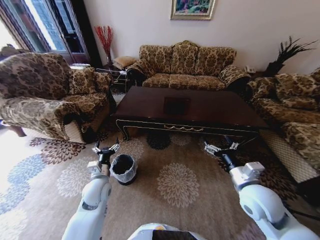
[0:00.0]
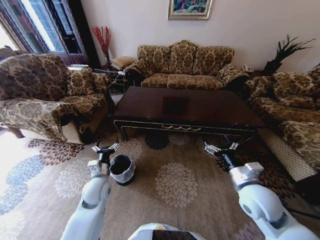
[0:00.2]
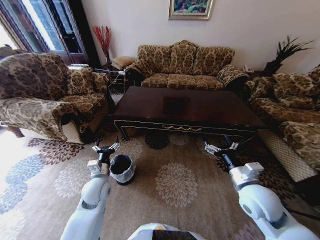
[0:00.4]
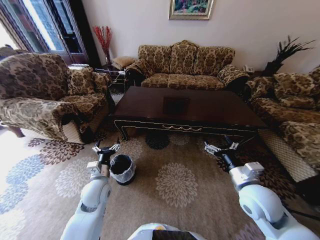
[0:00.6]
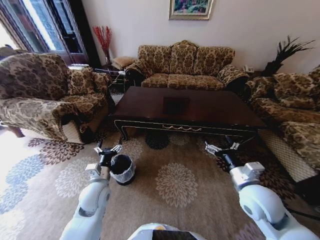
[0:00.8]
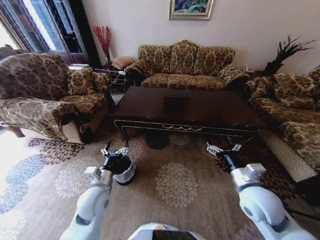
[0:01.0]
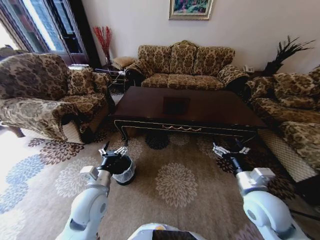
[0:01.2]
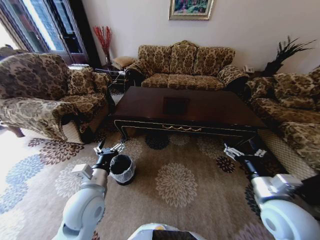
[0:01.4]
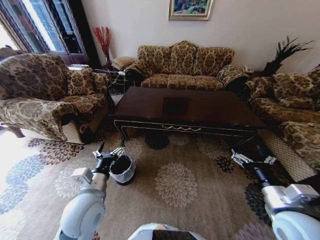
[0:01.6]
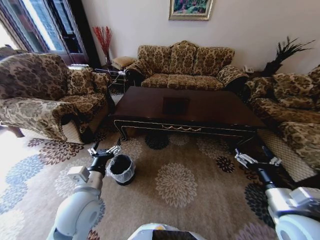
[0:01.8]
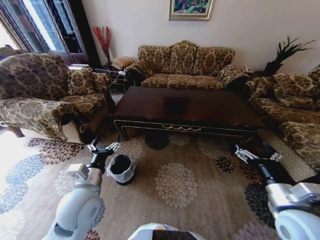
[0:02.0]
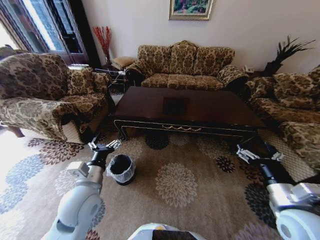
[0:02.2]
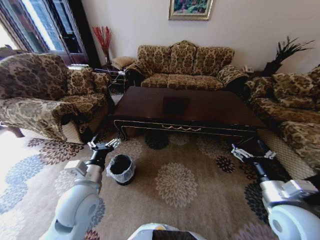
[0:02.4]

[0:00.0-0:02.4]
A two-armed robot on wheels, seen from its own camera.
Task of the whole recording: Move to the front of the table and place the trash on the table into the trash bin.
0:00.0 to 0:01.2: The left gripper heads backward and upward, covering about 10 cm.
0:01.2 to 0:02.4: The left gripper moves upward, about 5 cm. Meanwhile the right gripper moves approximately 5 cm.

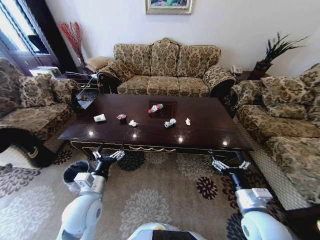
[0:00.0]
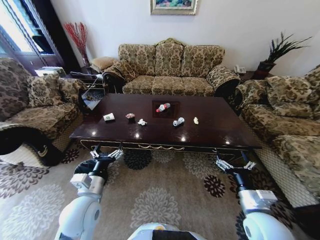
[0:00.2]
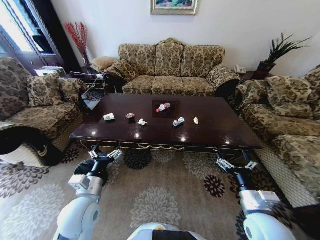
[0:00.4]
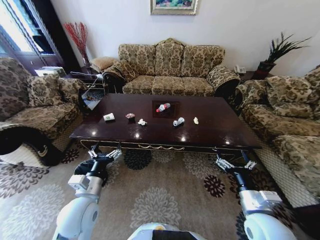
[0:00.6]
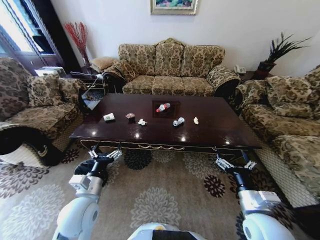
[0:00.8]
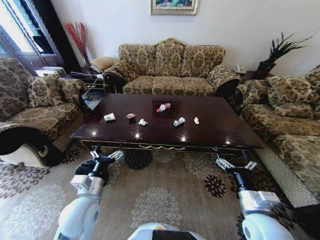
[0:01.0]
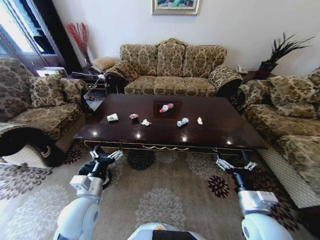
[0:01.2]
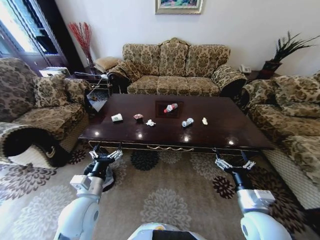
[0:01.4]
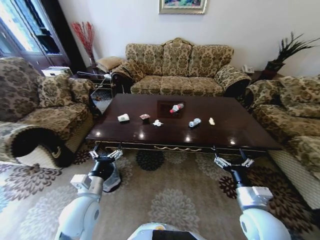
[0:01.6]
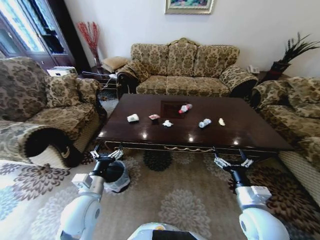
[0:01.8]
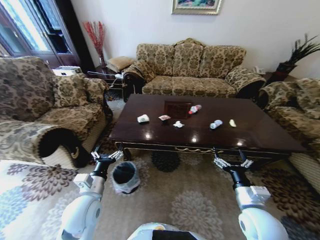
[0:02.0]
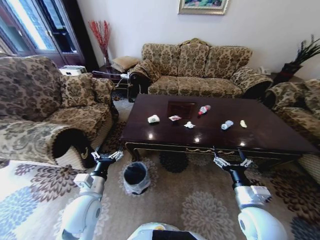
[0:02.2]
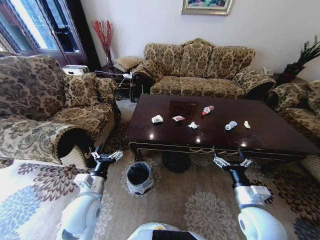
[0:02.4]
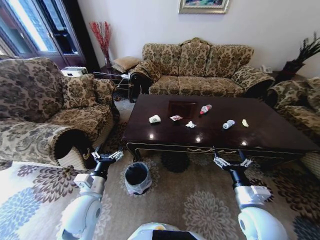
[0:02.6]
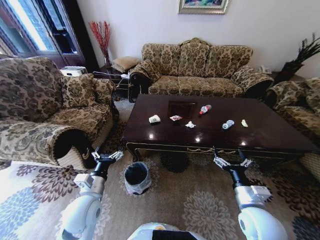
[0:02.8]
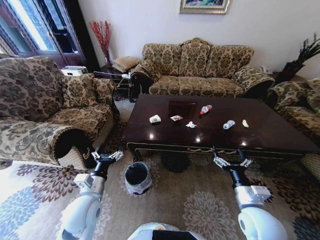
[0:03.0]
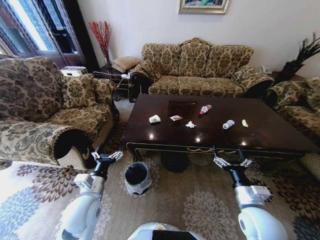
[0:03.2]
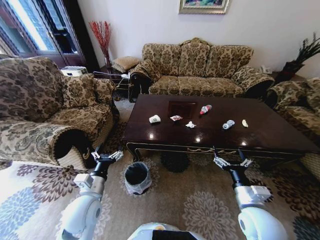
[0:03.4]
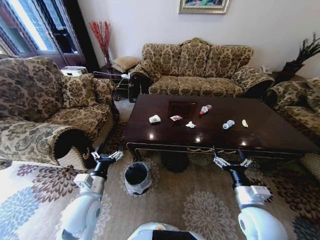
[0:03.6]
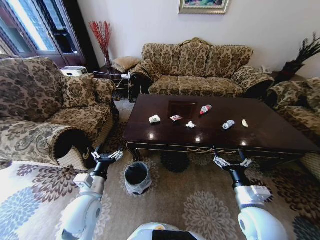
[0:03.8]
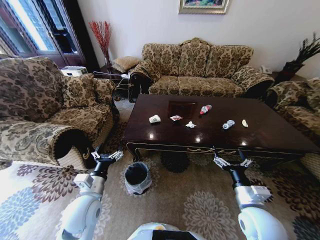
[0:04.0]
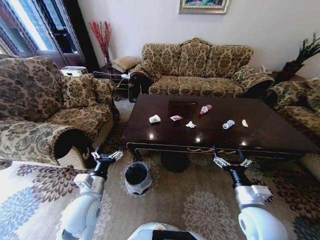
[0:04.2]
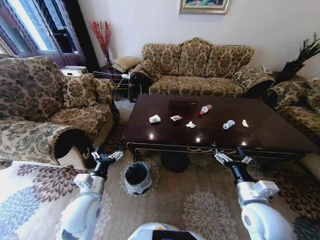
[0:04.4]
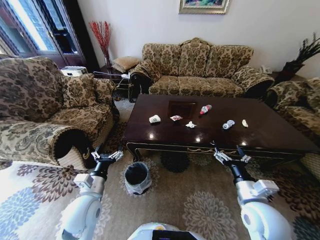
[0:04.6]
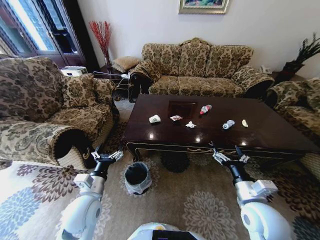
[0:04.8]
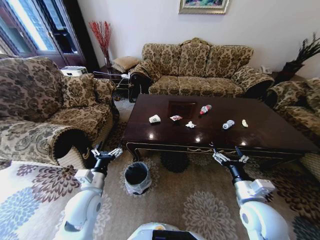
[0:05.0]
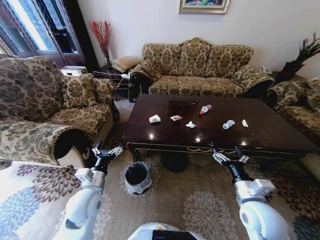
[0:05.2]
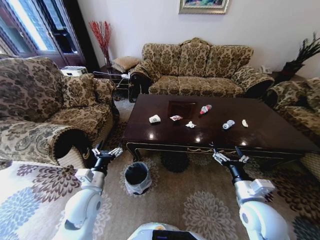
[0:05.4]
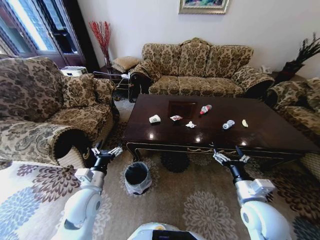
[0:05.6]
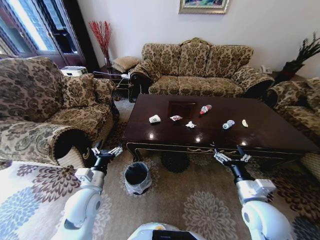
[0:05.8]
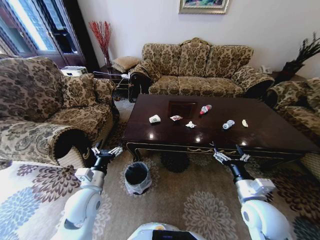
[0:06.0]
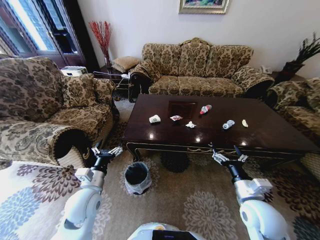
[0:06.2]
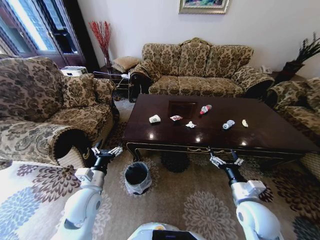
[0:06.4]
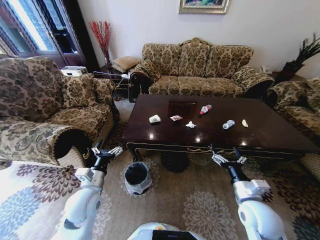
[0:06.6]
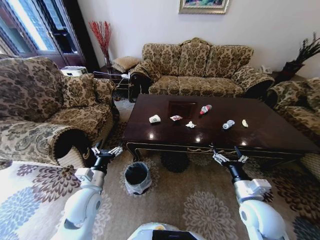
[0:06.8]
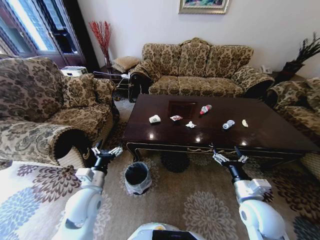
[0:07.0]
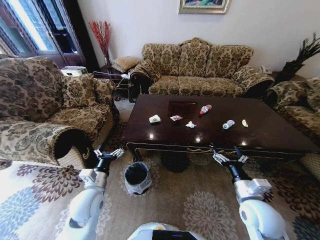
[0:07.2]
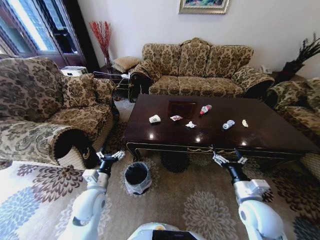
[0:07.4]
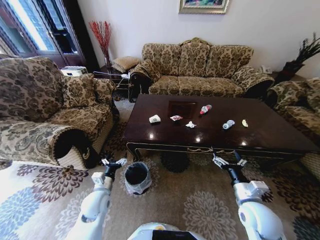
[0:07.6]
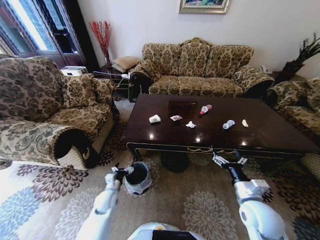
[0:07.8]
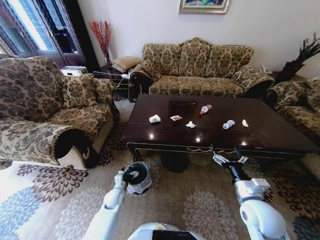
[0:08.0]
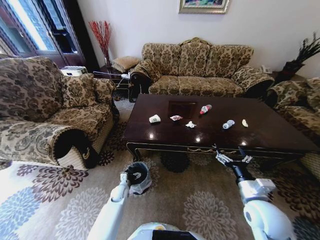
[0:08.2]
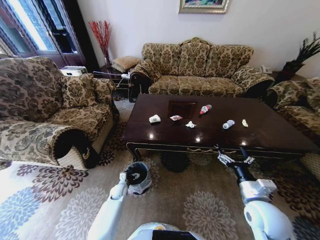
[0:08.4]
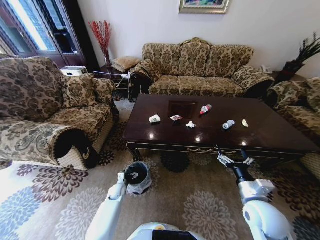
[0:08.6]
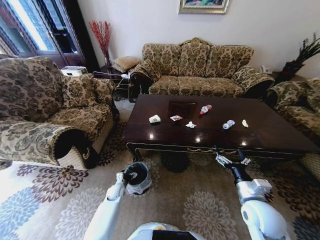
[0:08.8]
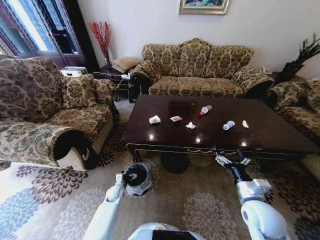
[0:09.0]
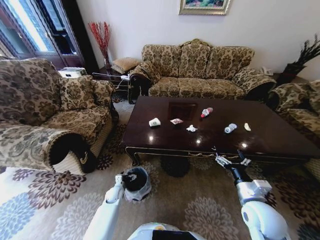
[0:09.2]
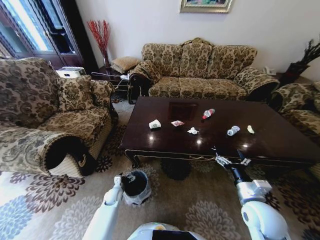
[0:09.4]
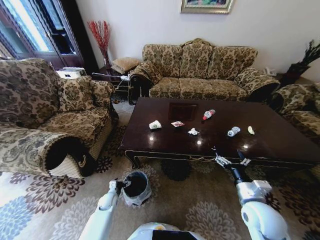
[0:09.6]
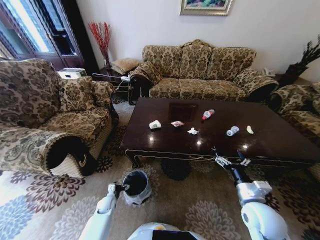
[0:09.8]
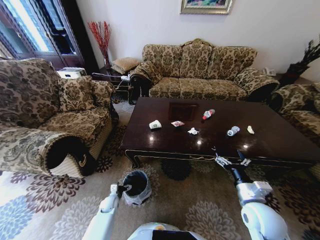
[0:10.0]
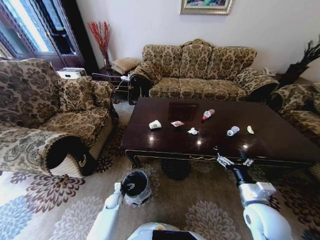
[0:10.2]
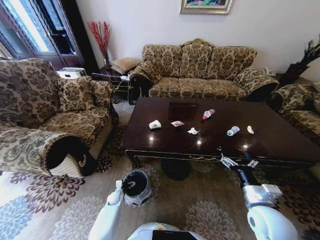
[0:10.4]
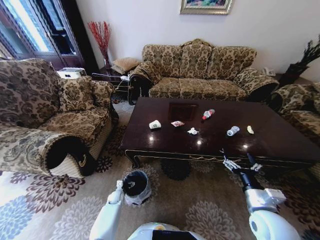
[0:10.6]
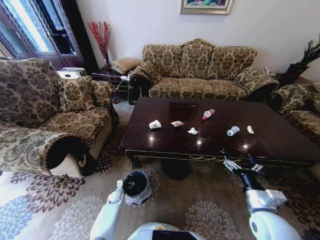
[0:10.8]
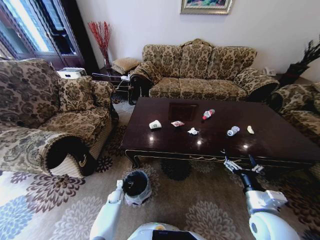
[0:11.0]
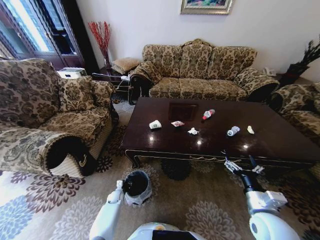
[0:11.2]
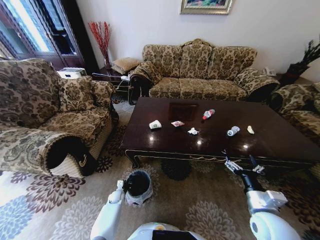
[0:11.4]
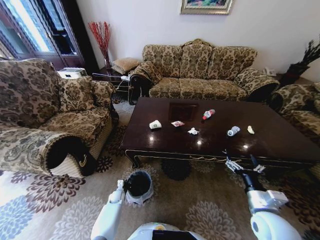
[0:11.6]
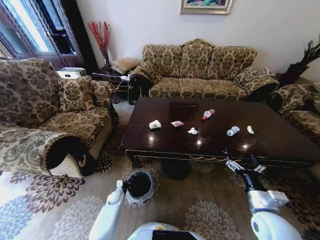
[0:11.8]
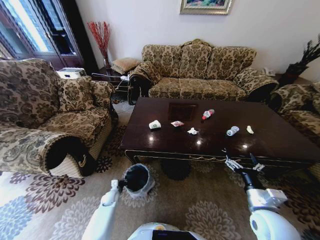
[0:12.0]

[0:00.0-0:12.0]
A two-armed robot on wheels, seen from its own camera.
Task of the whole recording: Move to the front of the table and place the trash on the table into the trash bin.
0:03.0 to 0:06.0: The grippers make only small movements.
0:06.0 to 0:07.6: The left gripper shifts about 10 cm downward.
0:07.6 to 0:09.0: The left gripper is displaced downward and forward by some 20 cm.
0:09.0 to 0:10.4: The left gripper is displaced downward by roughly 5 cm.
0:10.4 to 0:12.0: The left gripper closes its fingers.

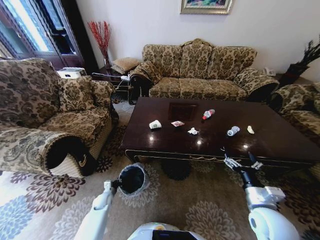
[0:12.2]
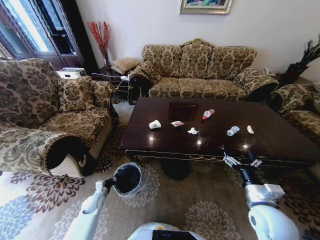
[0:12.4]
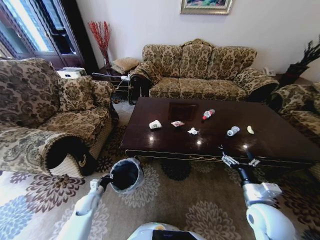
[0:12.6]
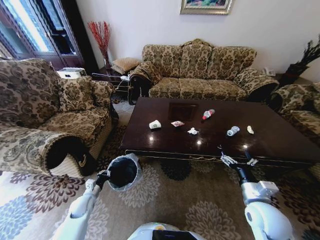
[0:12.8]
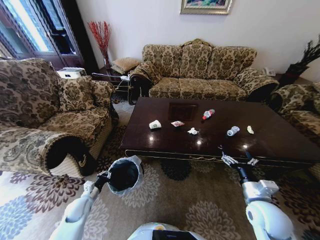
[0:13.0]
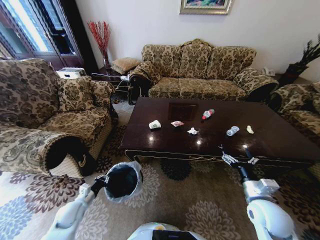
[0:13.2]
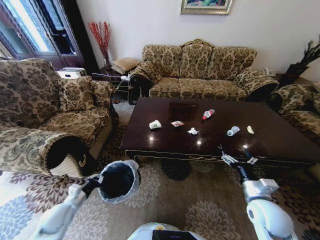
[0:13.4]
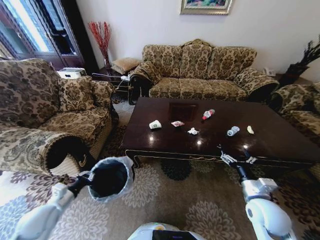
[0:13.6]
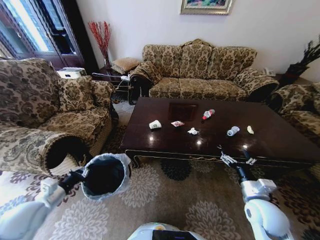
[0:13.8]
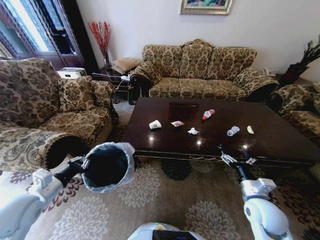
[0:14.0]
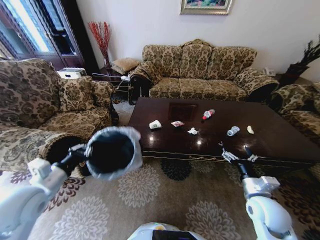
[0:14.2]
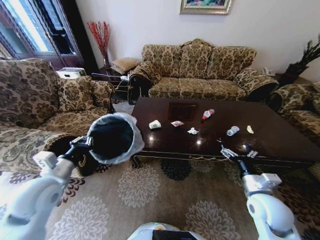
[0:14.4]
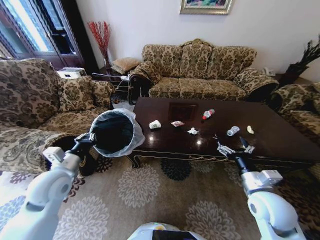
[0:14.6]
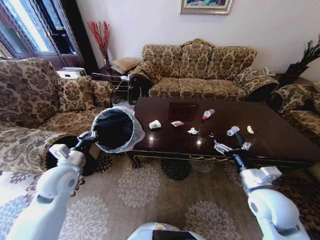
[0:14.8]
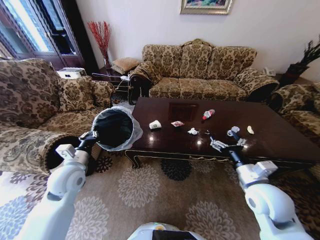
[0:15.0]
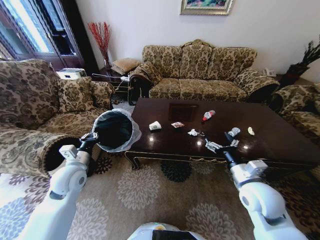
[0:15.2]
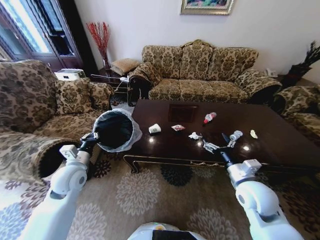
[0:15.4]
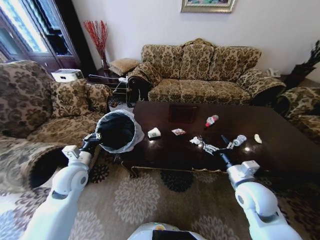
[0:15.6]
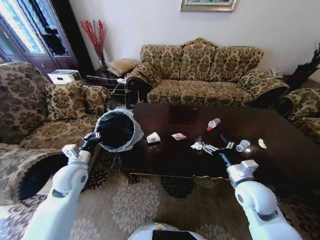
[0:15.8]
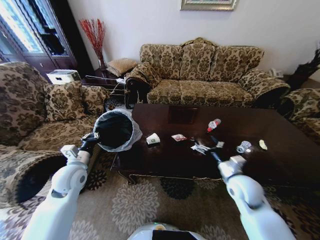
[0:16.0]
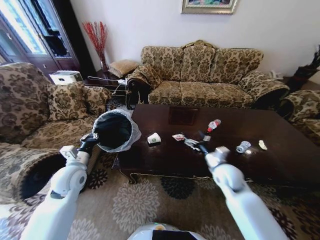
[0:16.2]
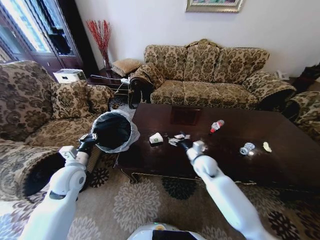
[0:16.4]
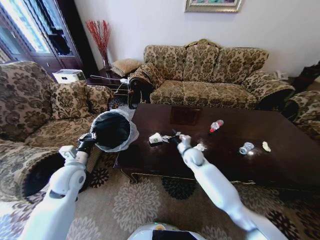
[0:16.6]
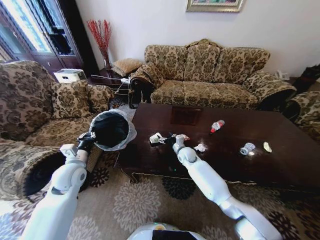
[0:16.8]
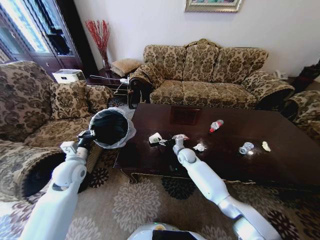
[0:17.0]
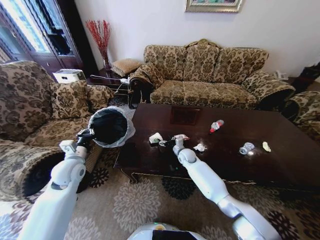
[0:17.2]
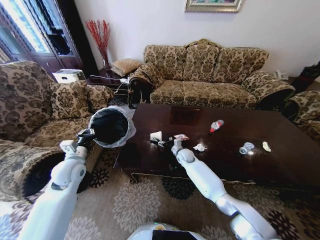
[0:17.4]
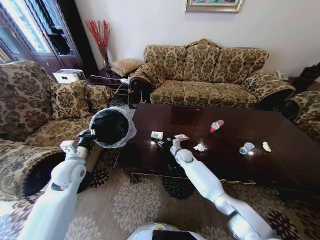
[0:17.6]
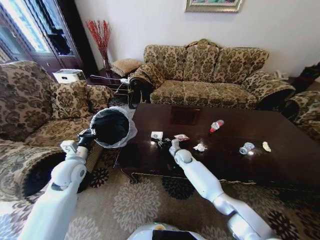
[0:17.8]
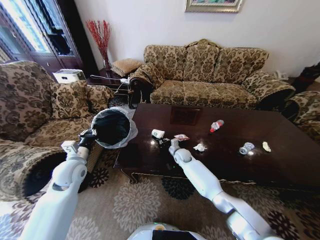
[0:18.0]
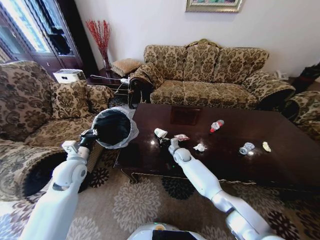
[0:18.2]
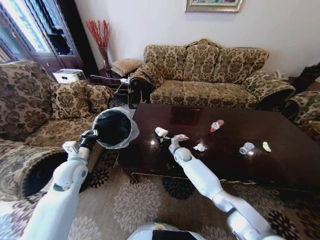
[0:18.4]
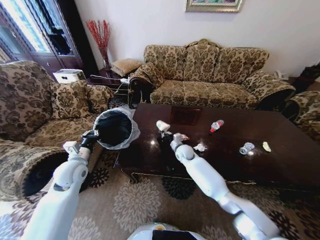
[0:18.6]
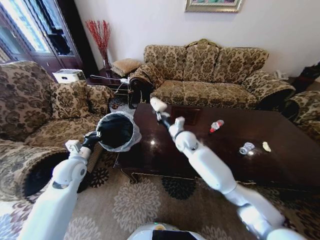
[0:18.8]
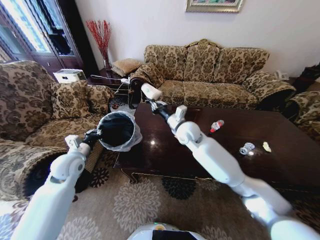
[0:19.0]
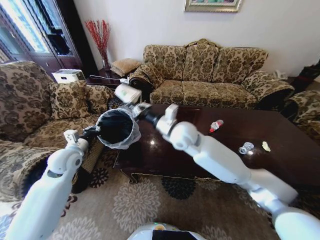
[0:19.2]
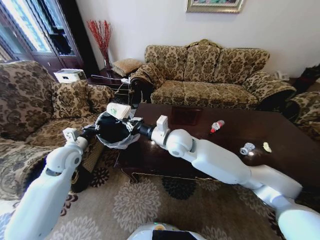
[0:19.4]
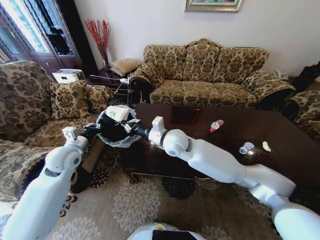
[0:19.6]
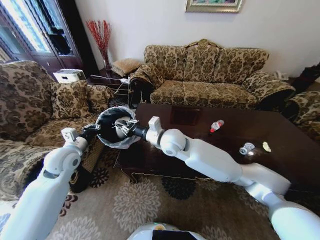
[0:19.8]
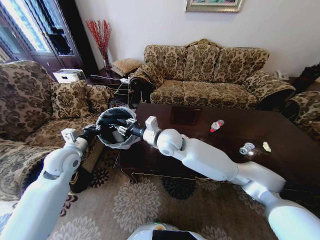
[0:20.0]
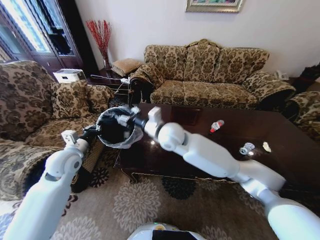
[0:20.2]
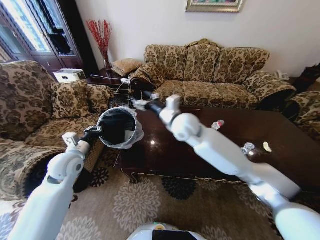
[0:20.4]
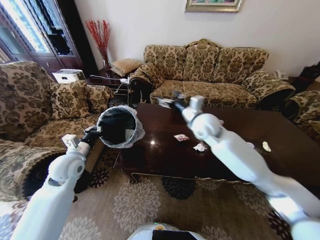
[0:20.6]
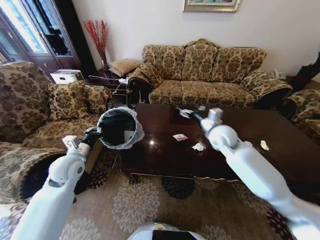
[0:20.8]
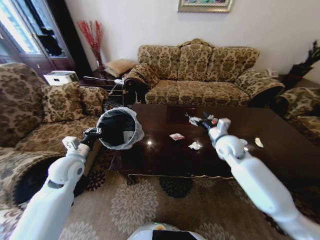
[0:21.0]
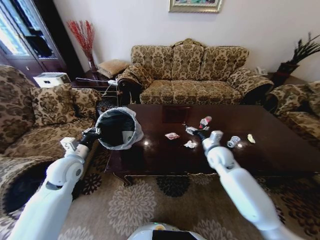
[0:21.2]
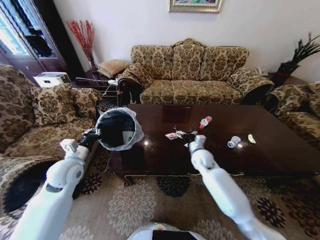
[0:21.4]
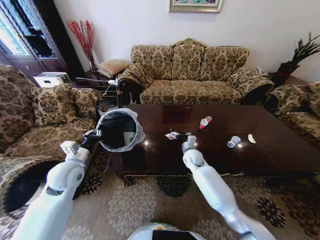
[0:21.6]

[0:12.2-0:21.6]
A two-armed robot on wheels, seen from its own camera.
Task of the whole recording: Move to the front of the table and place the trash on the table into the trash bin.
0:12.2 to 0:13.8: The left gripper goes about 30 cm upward.
0:13.8 to 0:15.4: The left gripper moves forward and to the right, approximately 15 cm. The right gripper is displaced upward by some 5 cm.
0:15.4 to 0:17.0: The right gripper travels forward, to the left and downward by roughly 30 cm.
0:17.0 to 0:18.4: The right gripper closes.
0:18.4 to 0:20.0: The right gripper heads upward, backward and to the left, covering some 30 cm. Meanwhile the left gripper goes some 5 cm upward.
0:20.0 to 0:21.6: The right gripper moves downward and to the right, roughly 25 cm, and opens; the left gripper moves roughly 5 cm.
